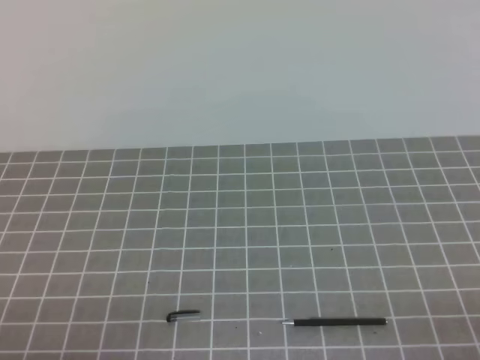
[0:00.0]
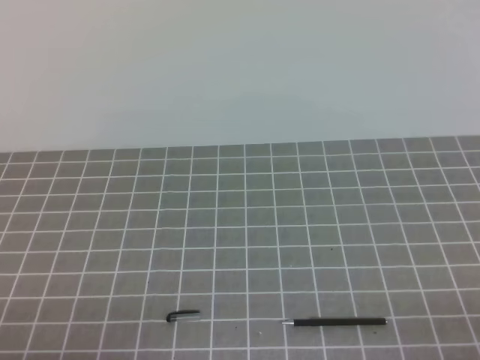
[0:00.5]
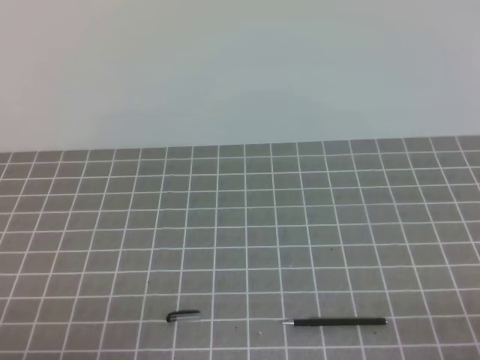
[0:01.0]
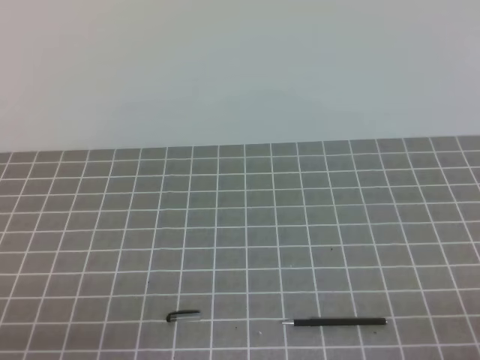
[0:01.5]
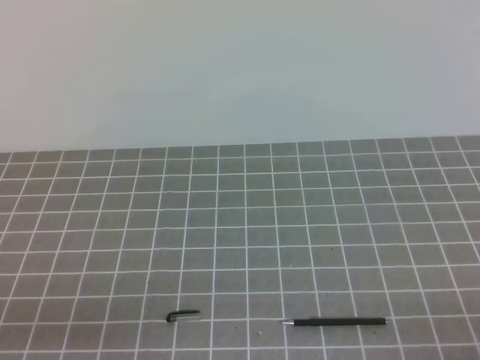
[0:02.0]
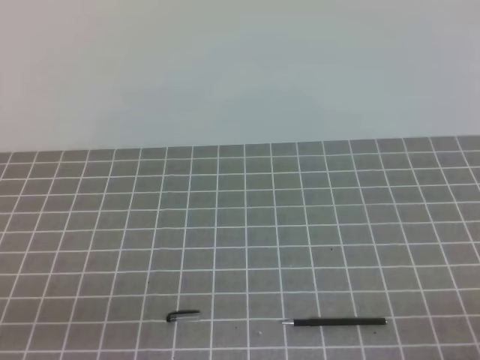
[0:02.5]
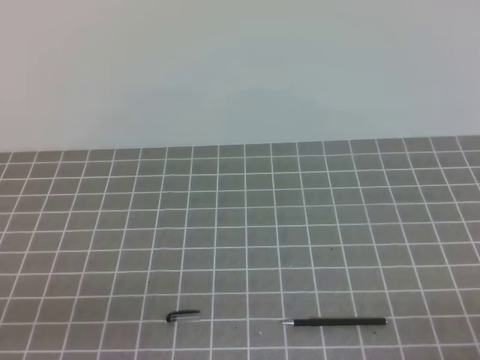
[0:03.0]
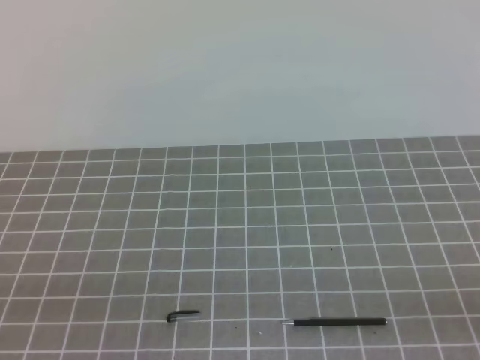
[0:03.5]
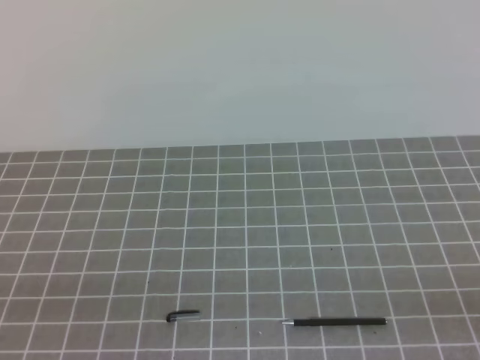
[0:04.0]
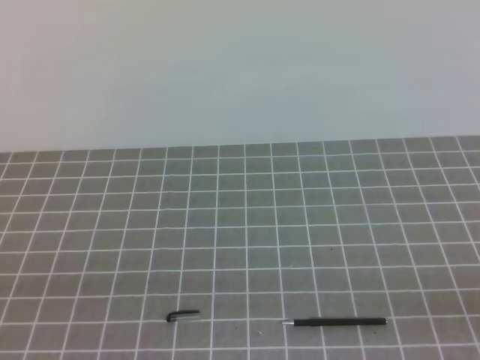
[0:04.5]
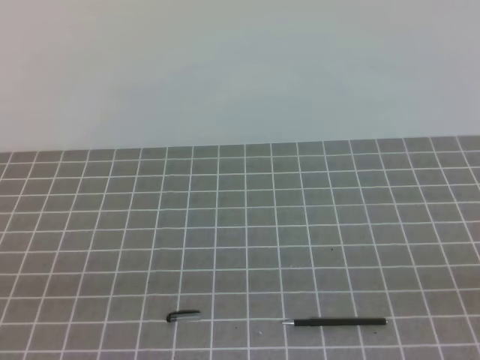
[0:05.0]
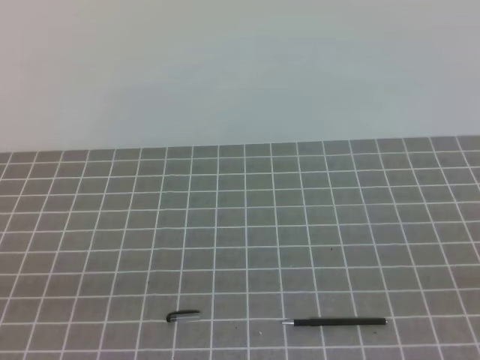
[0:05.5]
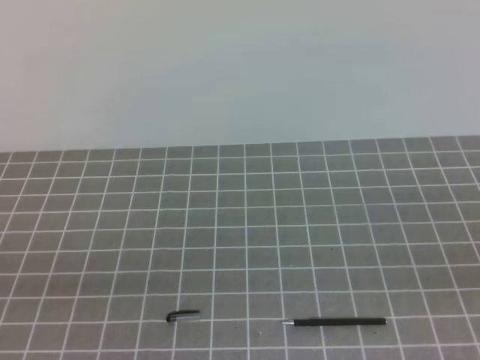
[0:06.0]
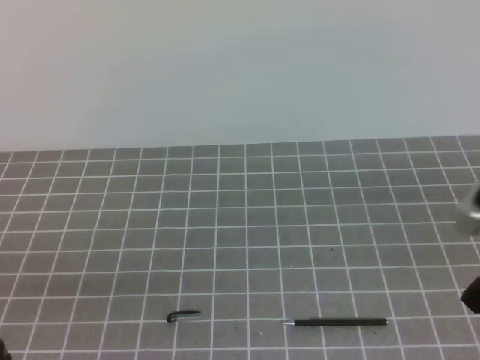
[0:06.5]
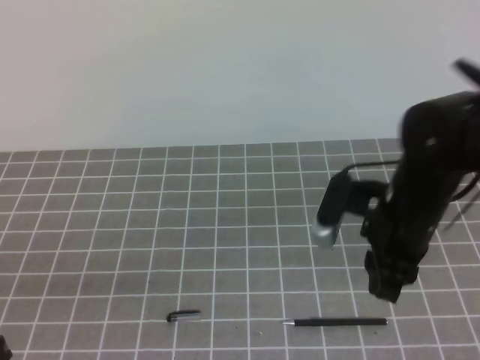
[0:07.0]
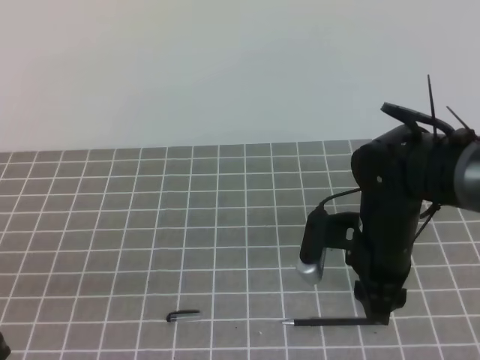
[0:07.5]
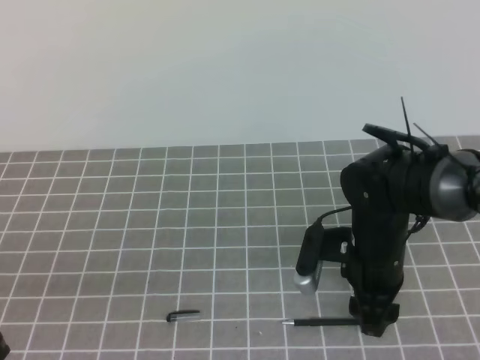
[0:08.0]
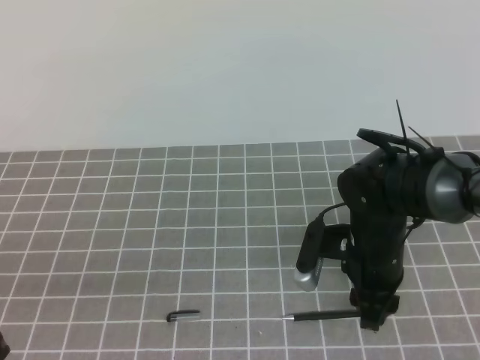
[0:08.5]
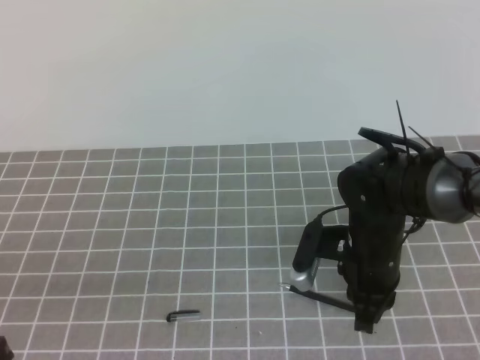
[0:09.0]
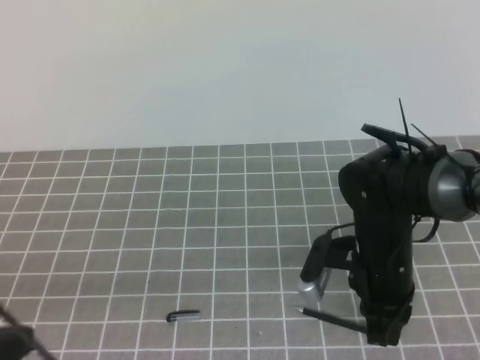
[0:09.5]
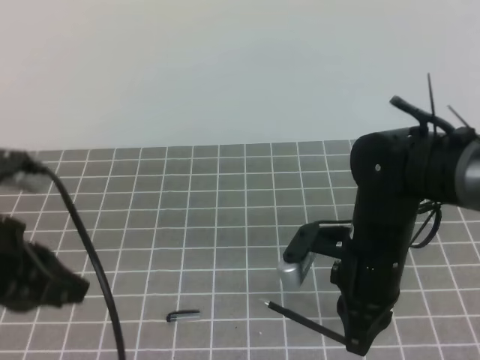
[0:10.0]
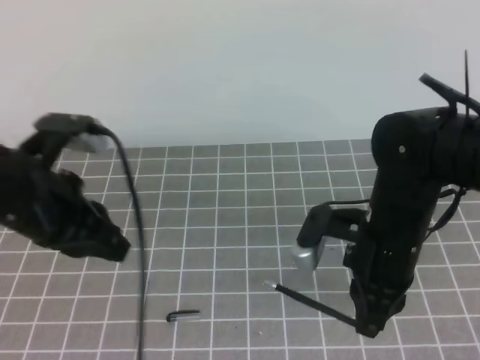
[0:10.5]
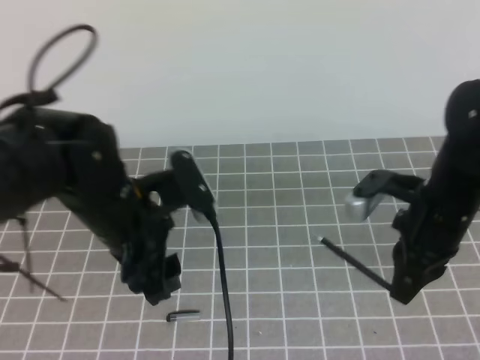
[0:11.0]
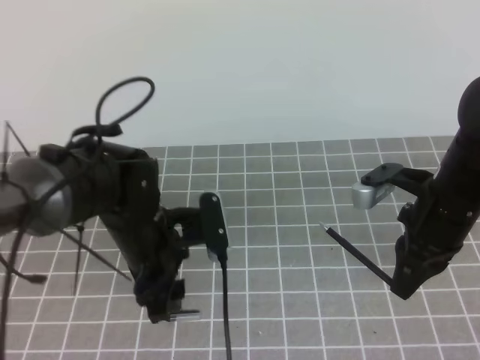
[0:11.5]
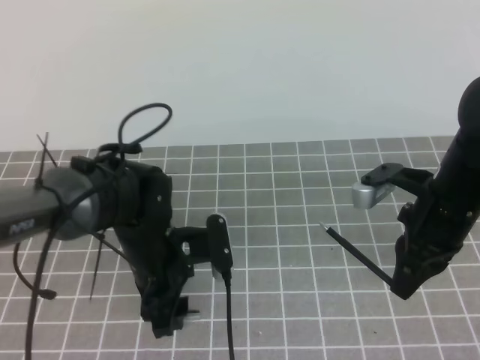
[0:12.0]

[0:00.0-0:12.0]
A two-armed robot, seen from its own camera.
Task of the whole recording: on the grey tablecloth, hold the pen cap in one hand and the pen in the other, then cover the pen cap.
0:06.0 to 0:08.0: The right gripper goes roughly 30 cm forward, to the left and downward, and opens up.
0:08.0 to 0:10.0: The right gripper closes its fingers, while the left gripper is displaced forward by approximately 5 cm.
0:10.0 to 0:12.0: The left gripper is displaced forward, downward and to the right by some 25 cm, and opens; the right gripper travels to the right by approximately 10 cm.

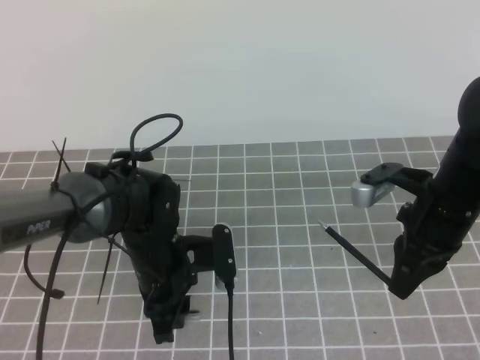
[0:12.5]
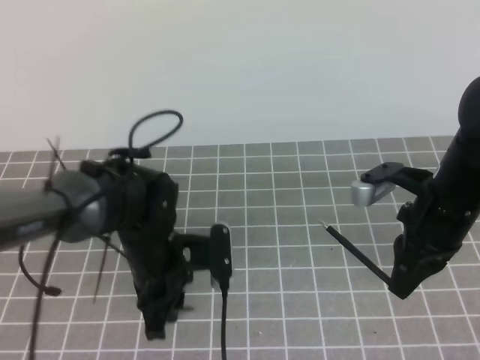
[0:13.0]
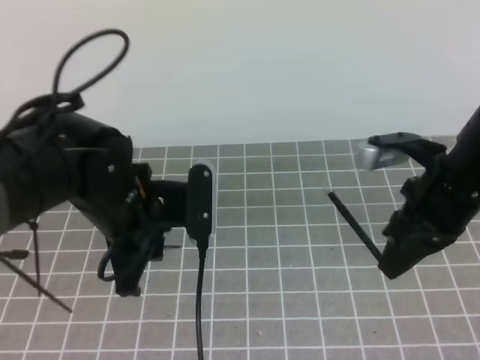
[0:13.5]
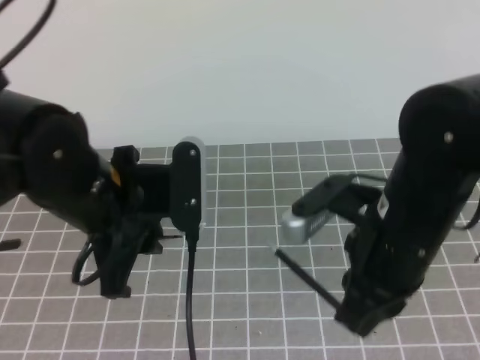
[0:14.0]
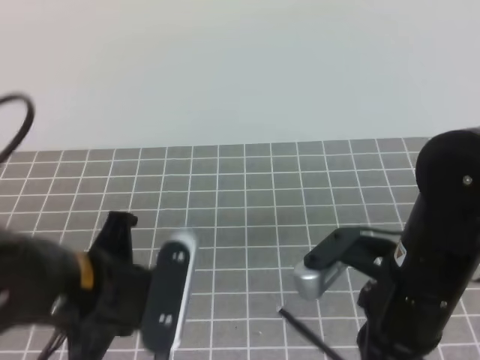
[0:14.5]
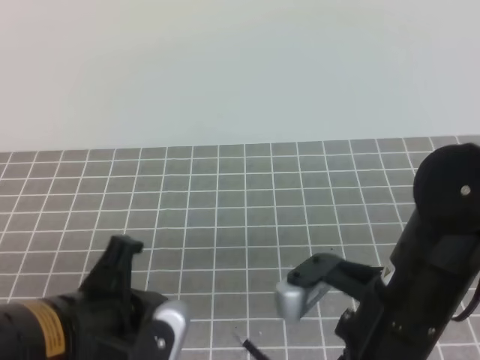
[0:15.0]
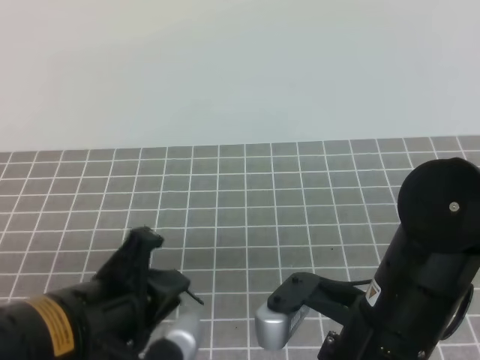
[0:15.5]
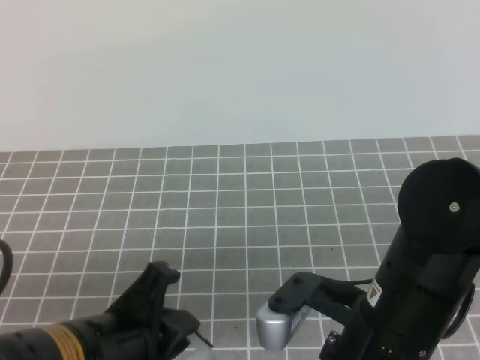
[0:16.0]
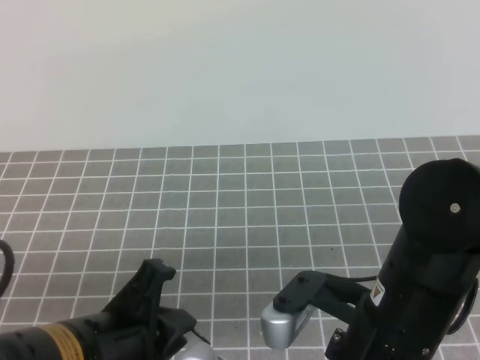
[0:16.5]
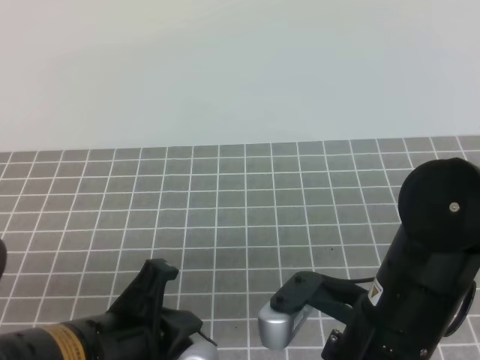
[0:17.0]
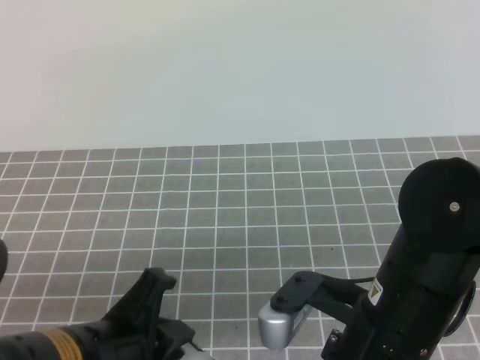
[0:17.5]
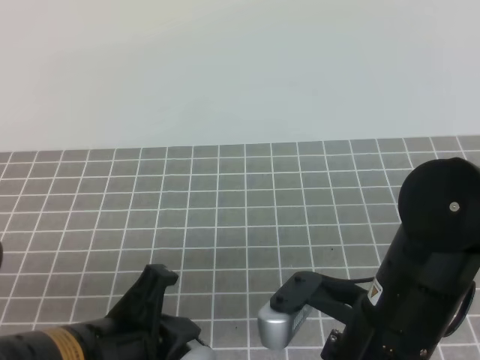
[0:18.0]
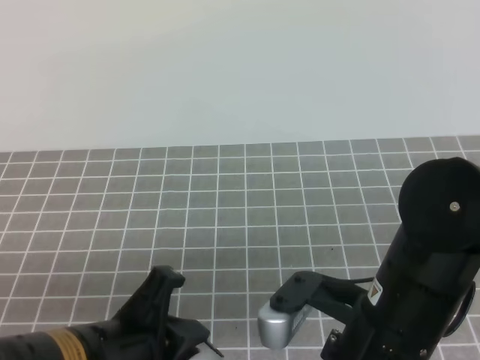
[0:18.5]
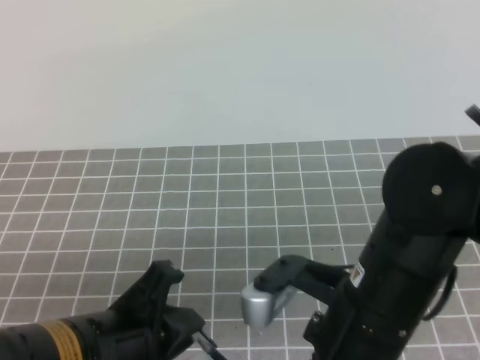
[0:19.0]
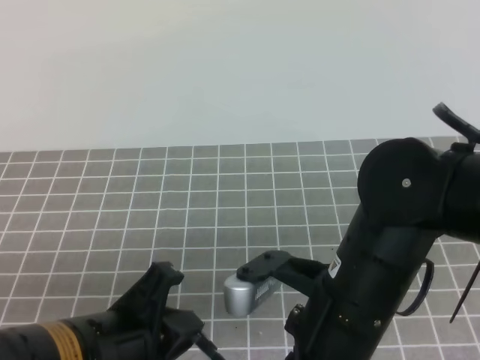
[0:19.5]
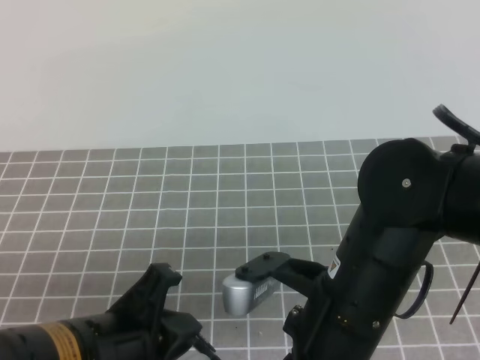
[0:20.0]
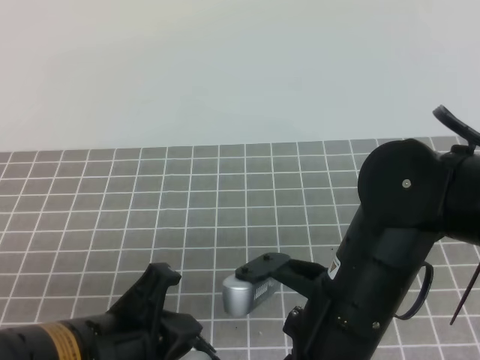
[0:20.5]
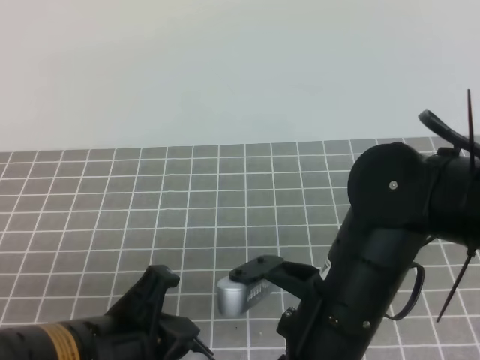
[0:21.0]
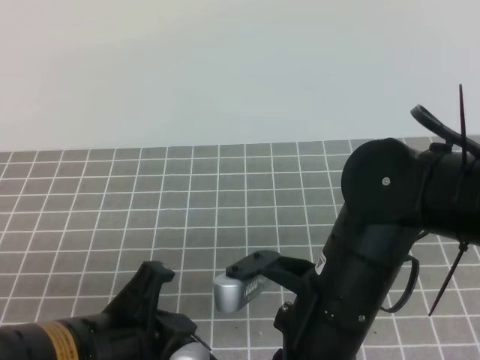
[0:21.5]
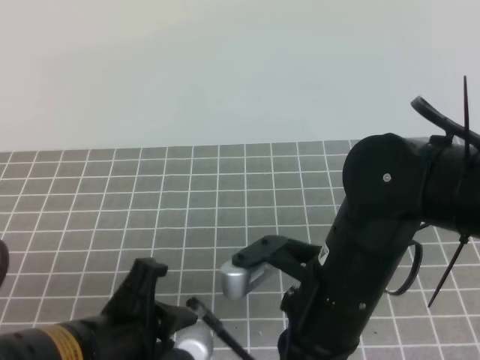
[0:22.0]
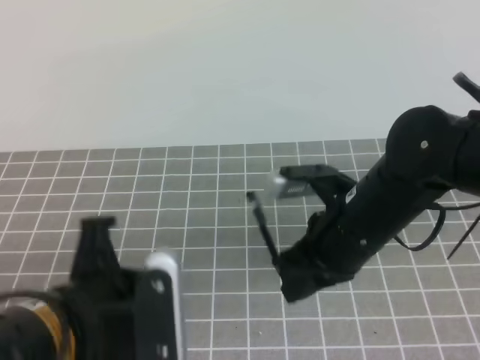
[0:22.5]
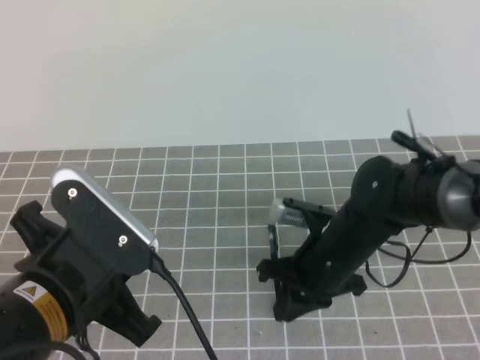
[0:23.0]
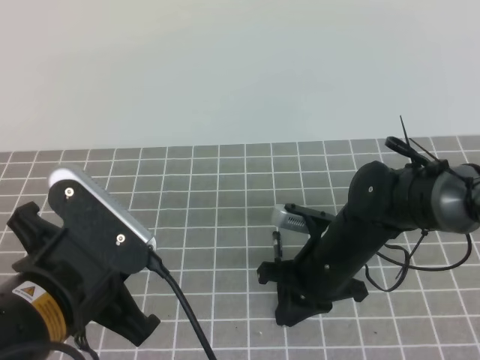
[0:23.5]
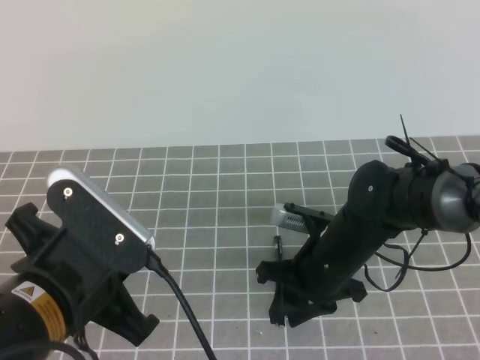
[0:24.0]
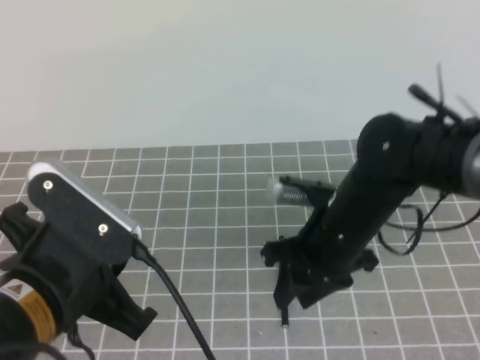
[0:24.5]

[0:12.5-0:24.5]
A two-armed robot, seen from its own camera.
Task of the whole recording: on the grey tablecloth, hold the pen cap in one hand and the pen in the other, then cover the pen cap.
0:12.5 to 0:14.5: The left gripper is displaced upward and backward by approximately 15 cm, and closes its fingers, while the right gripper travels backward and to the left by approximately 15 cm.
0:14.5 to 0:16.5: The left gripper heads backward, covering some 5 cm.
0:16.5 to 0:18.5: The two grippers keep their place.
0:18.5 to 0:20.5: The grippers stay close to where they were, moving slightly.
0:20.5 to 0:22.5: The left gripper opens, then closes once more, while the right gripper is displaced forward by approximately 5 cm.
0:22.5 to 0:24.5: The right gripper heads downward, covering about 5 cm, and opens its fingers.

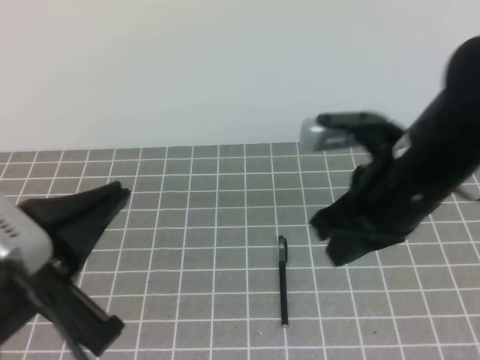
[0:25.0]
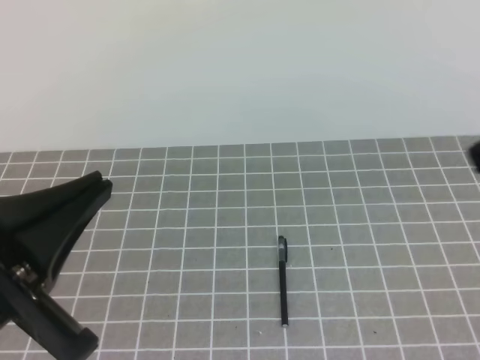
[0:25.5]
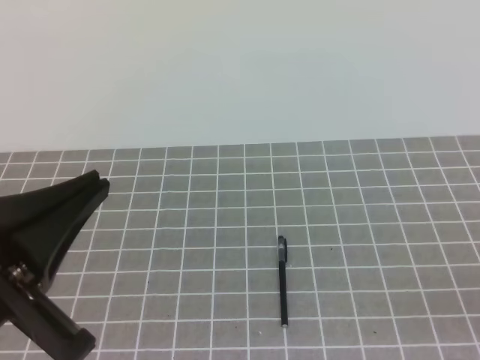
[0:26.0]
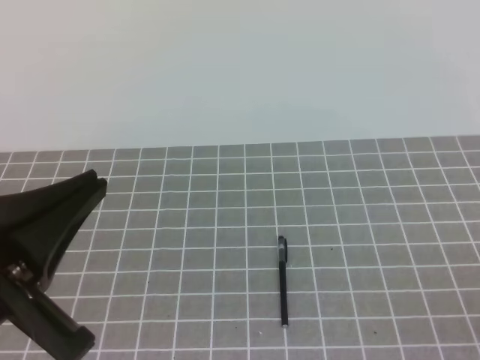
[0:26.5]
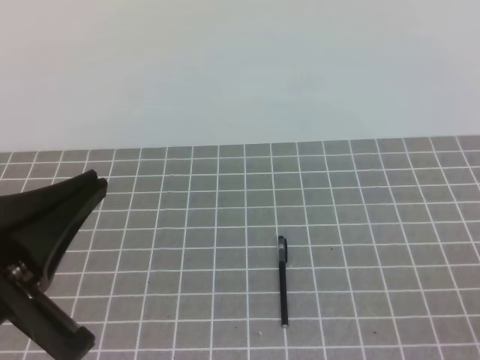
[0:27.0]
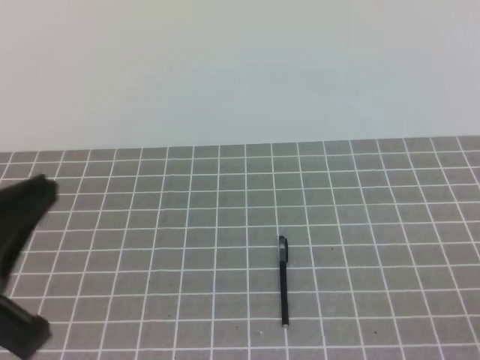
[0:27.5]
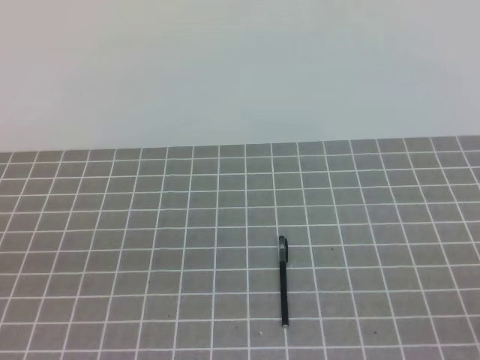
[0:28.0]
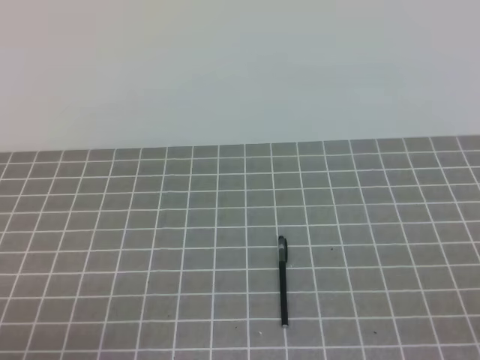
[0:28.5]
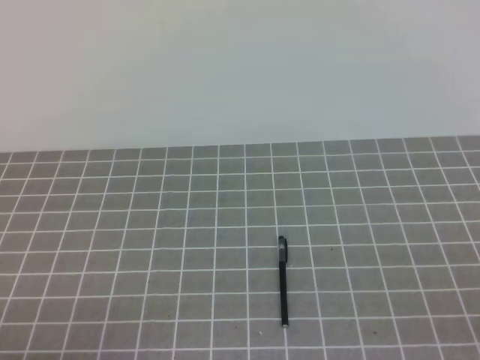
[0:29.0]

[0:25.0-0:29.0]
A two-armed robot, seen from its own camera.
Task of the whole recording: on the grey tablecloth, hold the pen cap in one hand and the pen in the other, then cover the pen cap.
0:25.0 to 0:27.0: The right gripper moves backward and to the right, some 30 cm.
0:27.0 to 0:29.0: The left gripper moves downward and to the left, about 20 cm.
